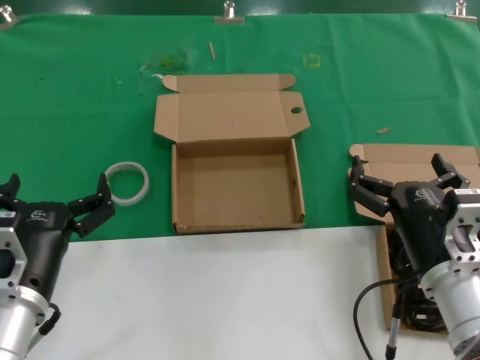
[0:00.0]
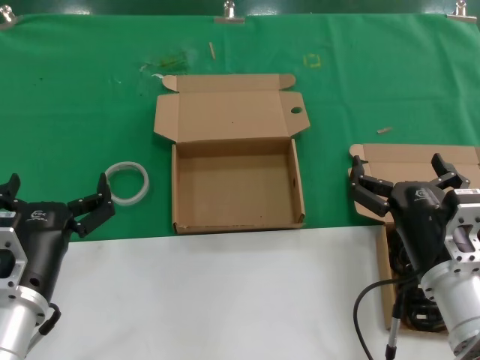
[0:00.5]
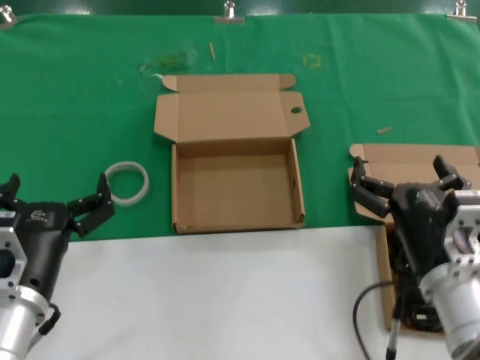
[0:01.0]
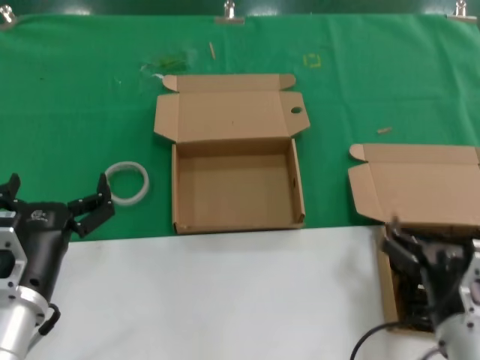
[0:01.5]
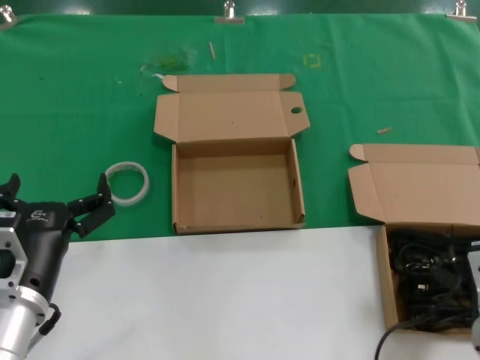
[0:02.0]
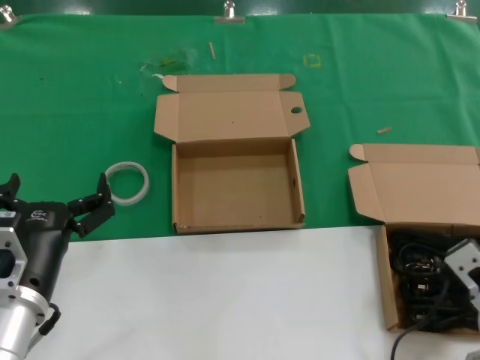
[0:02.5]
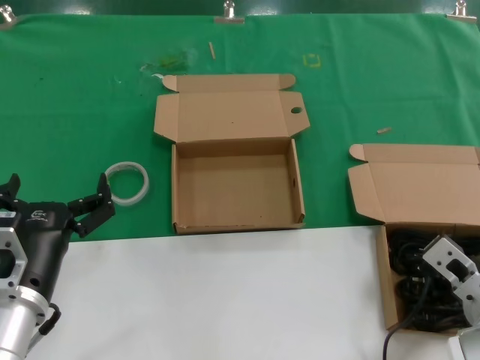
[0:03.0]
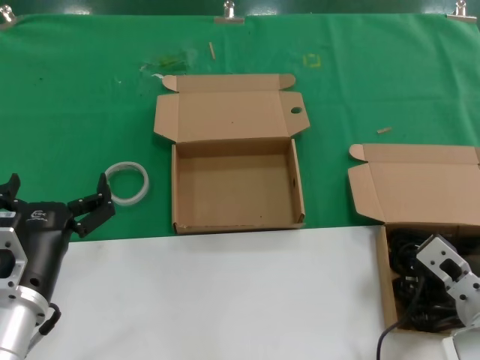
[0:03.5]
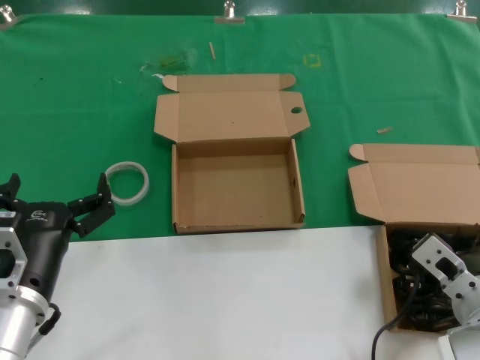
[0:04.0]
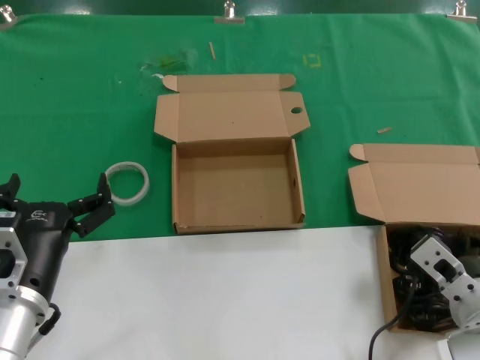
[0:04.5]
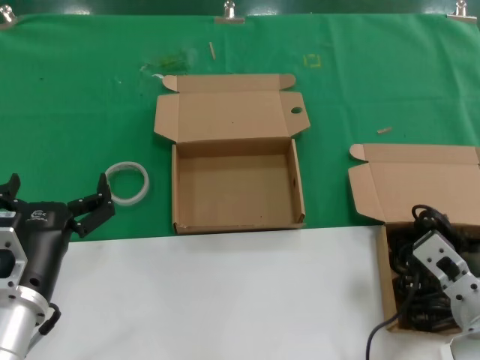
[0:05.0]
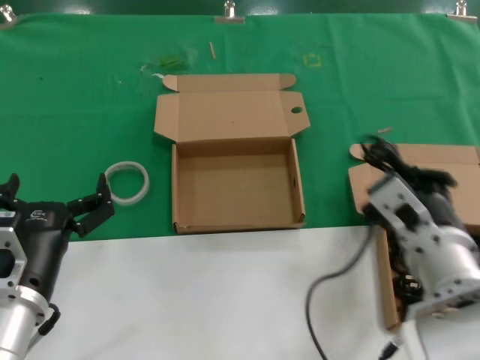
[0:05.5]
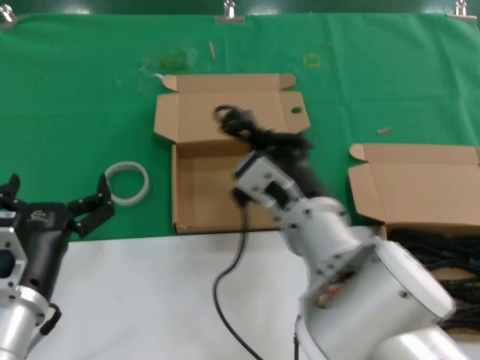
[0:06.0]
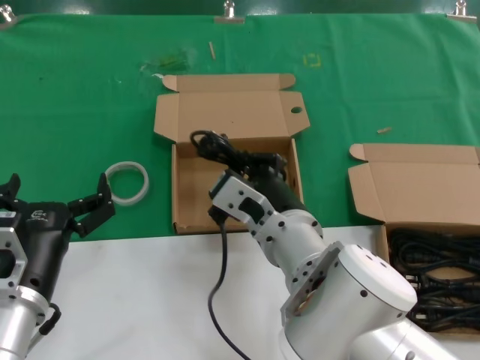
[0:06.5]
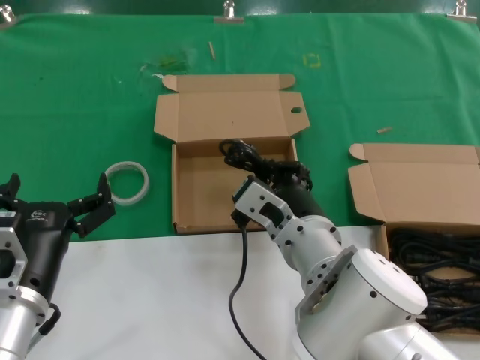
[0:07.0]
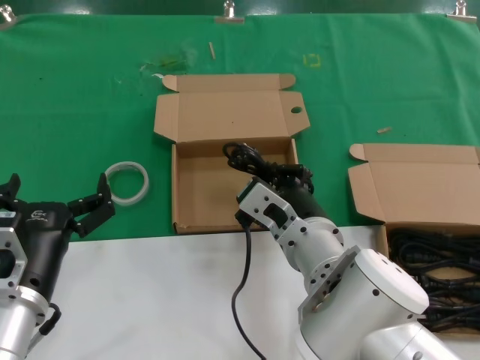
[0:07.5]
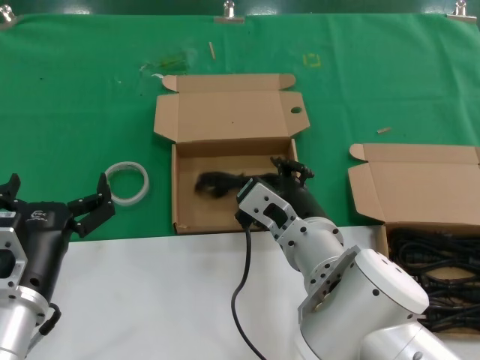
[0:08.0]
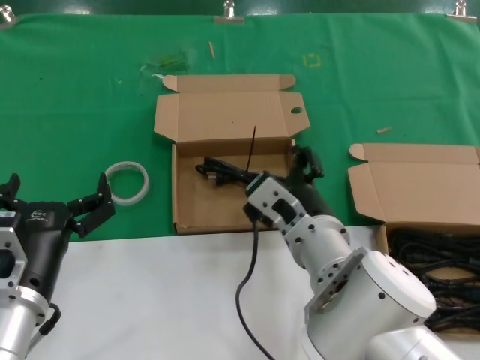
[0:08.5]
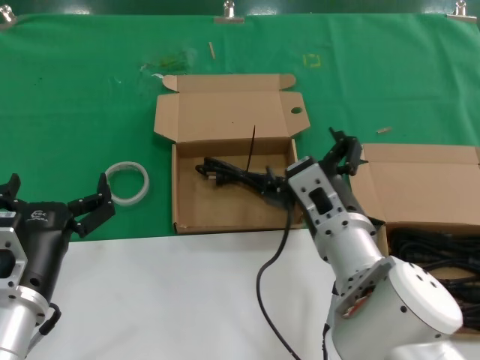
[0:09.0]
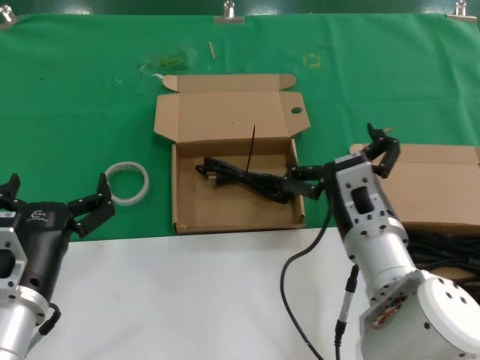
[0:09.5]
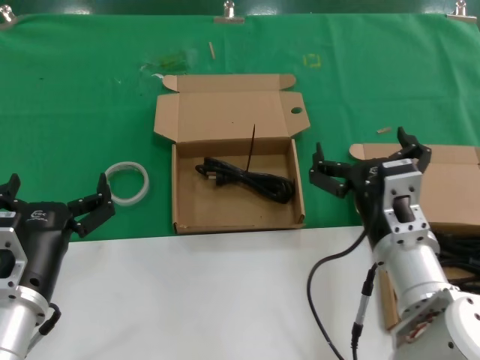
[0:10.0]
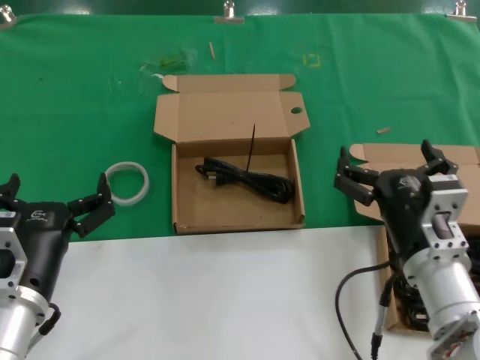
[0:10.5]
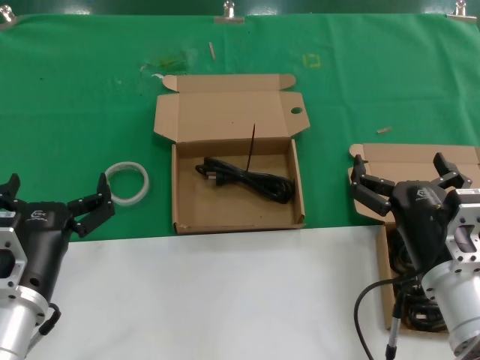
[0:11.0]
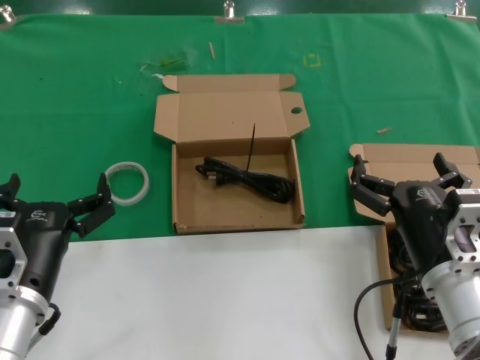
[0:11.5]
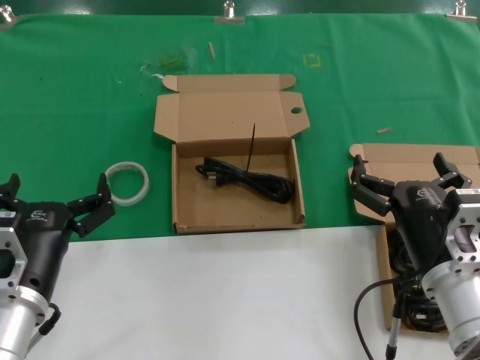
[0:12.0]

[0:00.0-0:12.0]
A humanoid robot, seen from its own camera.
Task of the whole recording: take the parts from the box containing them and put them into an empty box.
Step, 0:00.0 to 0:04.0: Grasp the data cable.
Step, 0:04.5 to 0:07.5: Place the data cable in the another box.
0:00.0 to 0:02.0: The right hand moves backward, about 5 cm.
0:02.0 to 0:04.0: The right hand goes about 5 cm forward.
0:04.0 to 0:06.0: The right hand heads to the left and upward, covering roughly 20 cm.
0:06.0 to 0:08.0: The right hand moves roughly 5 cm.
0:08.0 to 0:10.0: The right hand travels to the right by roughly 10 cm.
0:10.0 to 0:12.0: The right hand shifts about 5 cm to the right.

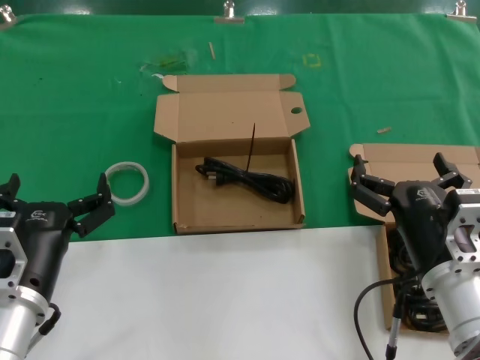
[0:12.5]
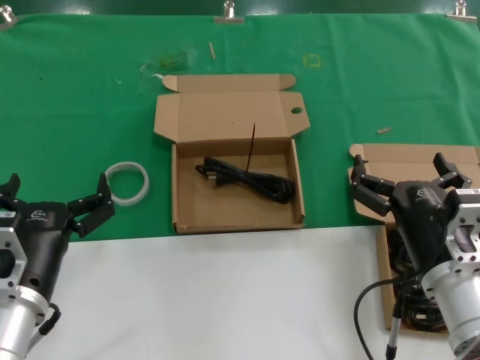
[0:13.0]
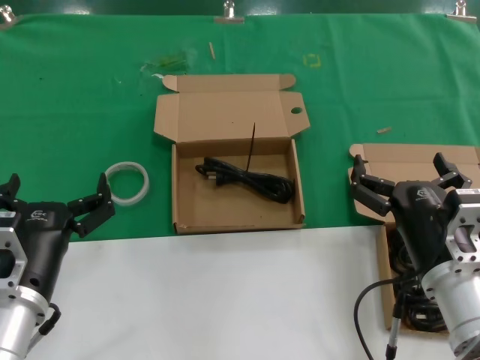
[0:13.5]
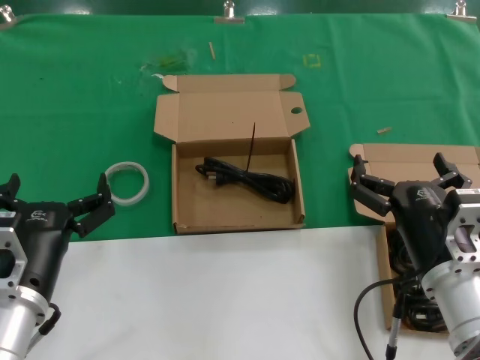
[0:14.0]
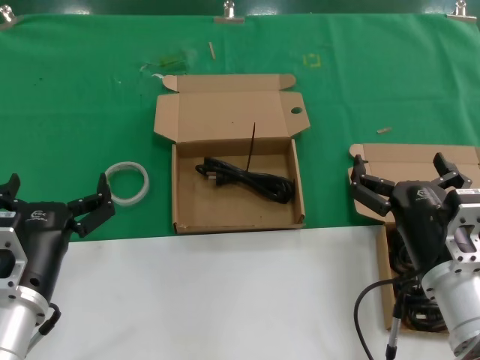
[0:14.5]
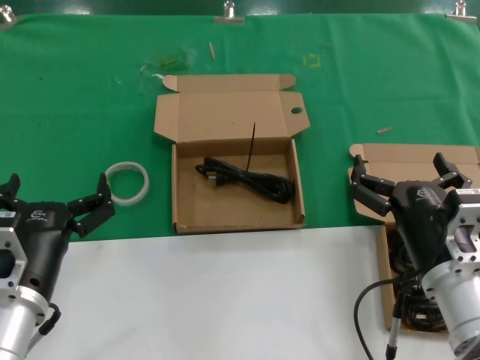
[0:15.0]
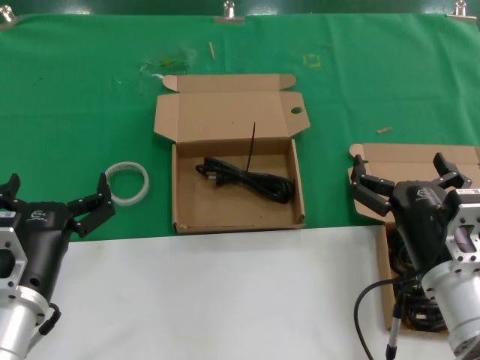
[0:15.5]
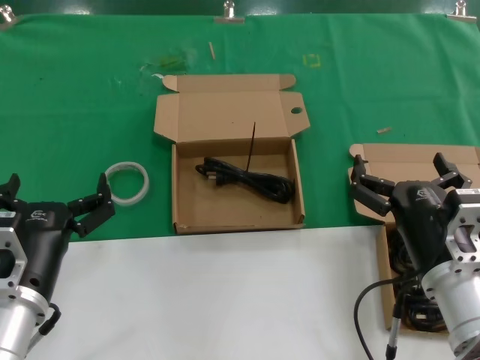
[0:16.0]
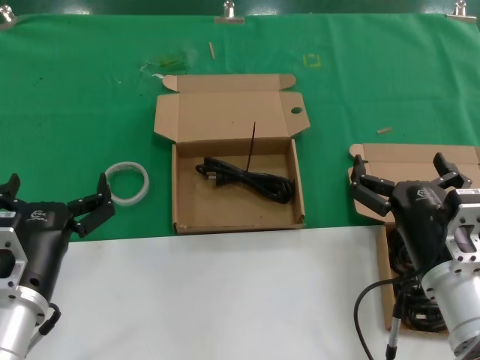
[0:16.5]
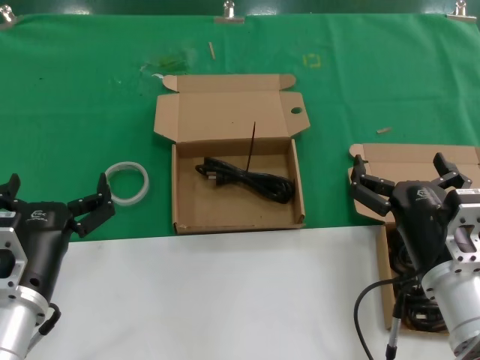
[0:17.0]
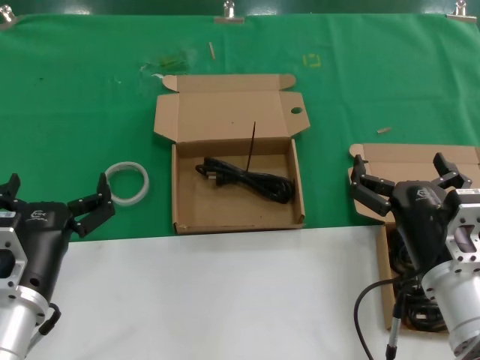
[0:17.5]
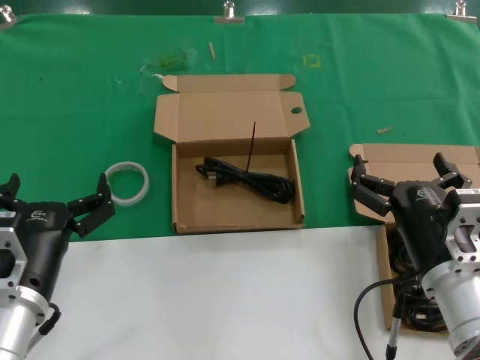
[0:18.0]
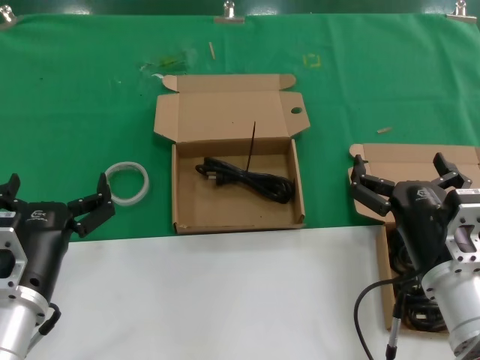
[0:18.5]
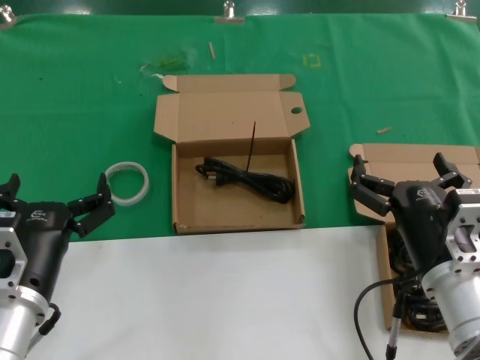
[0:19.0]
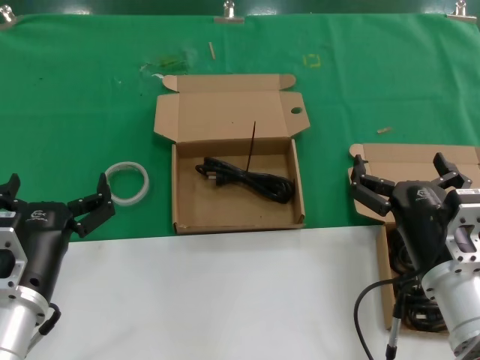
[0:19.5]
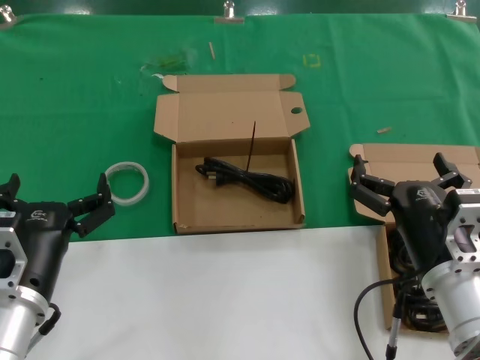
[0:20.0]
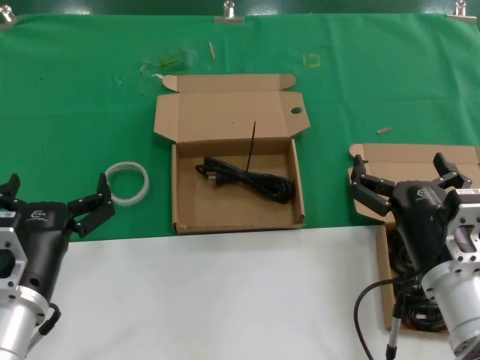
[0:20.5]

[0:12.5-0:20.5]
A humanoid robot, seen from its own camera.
Task of the whole recording: take the parts from the box containing them and put them into an empty box.
0:12.5 to 0:20.5: The two hands keep their place.
